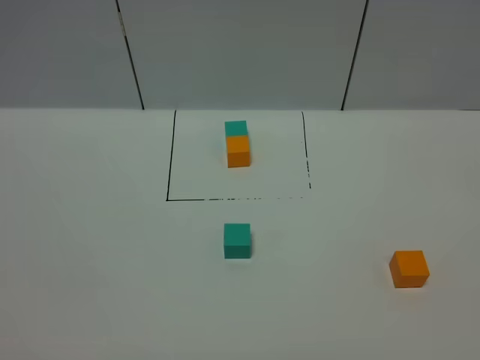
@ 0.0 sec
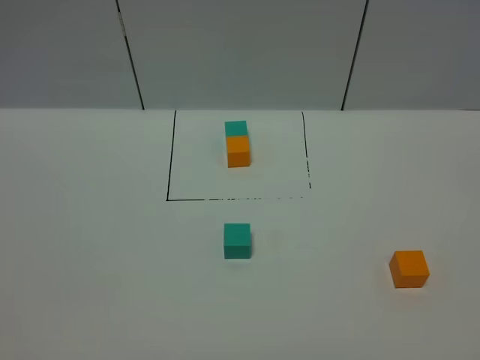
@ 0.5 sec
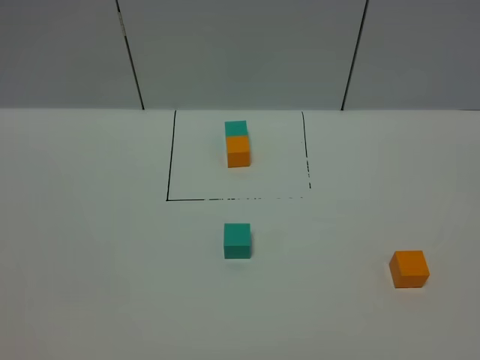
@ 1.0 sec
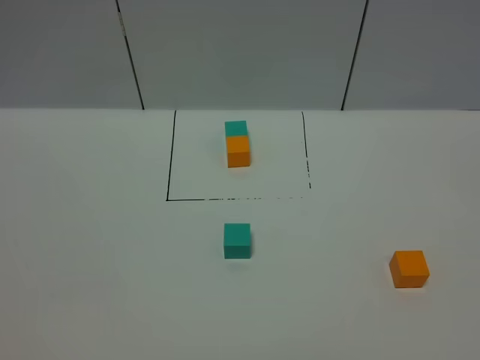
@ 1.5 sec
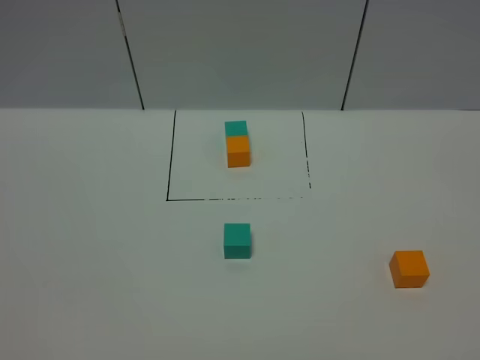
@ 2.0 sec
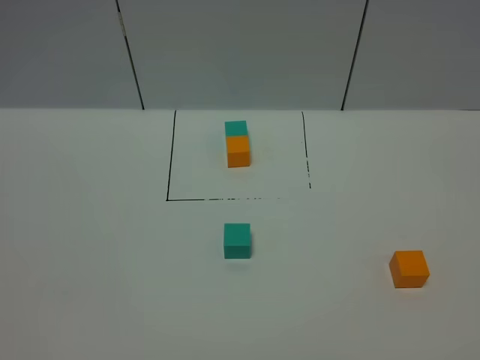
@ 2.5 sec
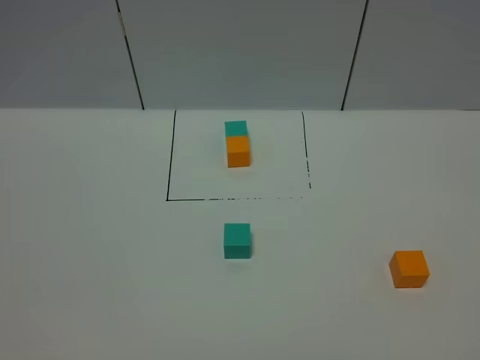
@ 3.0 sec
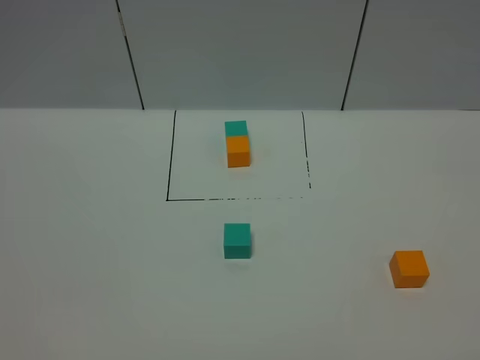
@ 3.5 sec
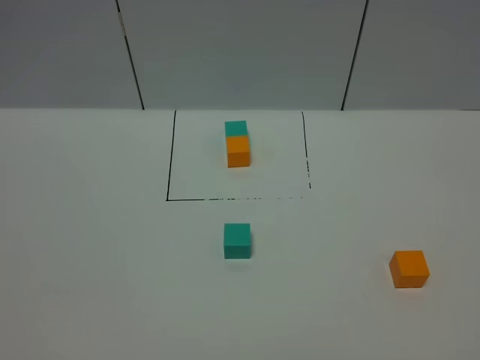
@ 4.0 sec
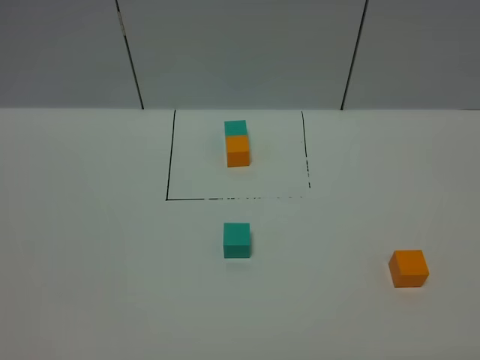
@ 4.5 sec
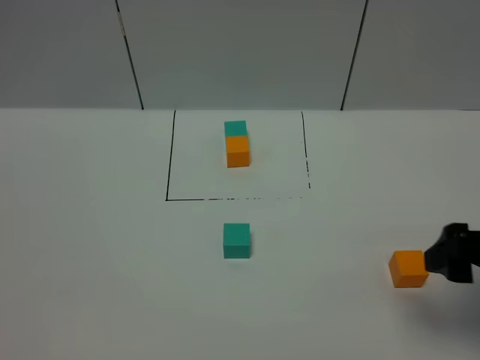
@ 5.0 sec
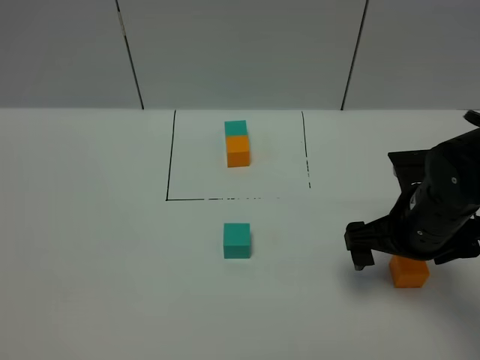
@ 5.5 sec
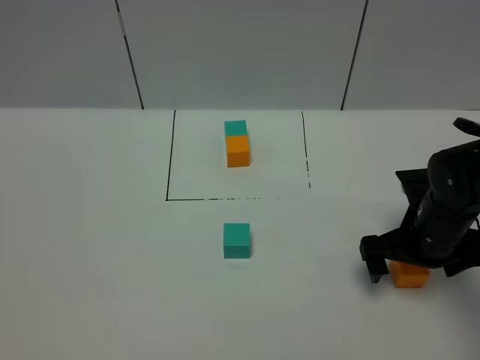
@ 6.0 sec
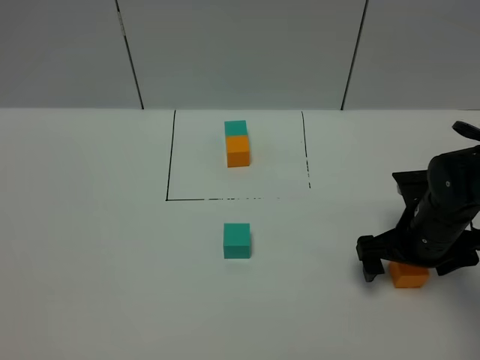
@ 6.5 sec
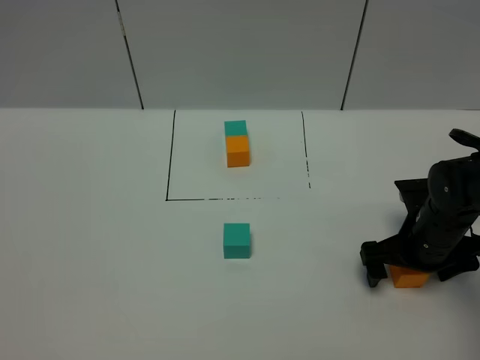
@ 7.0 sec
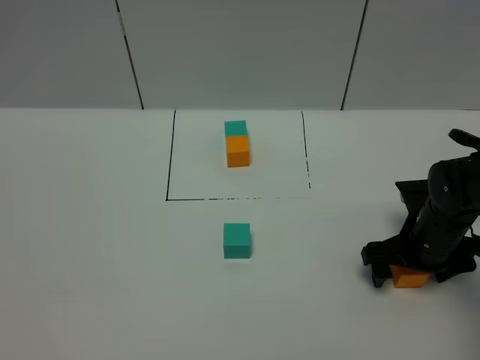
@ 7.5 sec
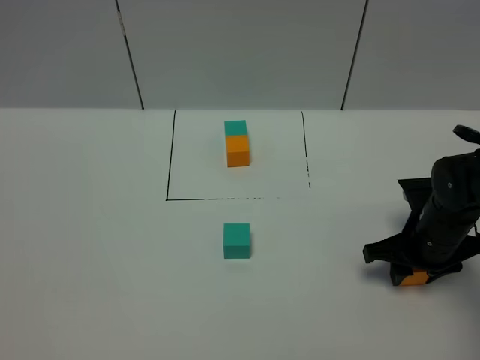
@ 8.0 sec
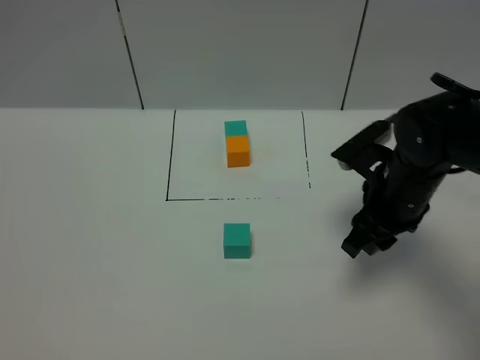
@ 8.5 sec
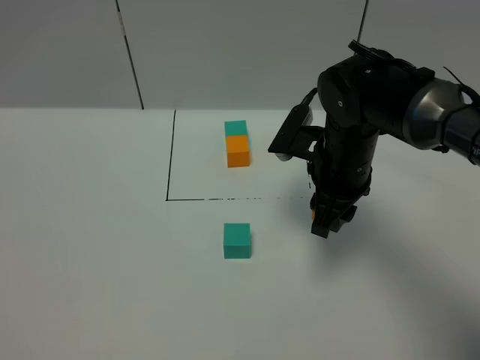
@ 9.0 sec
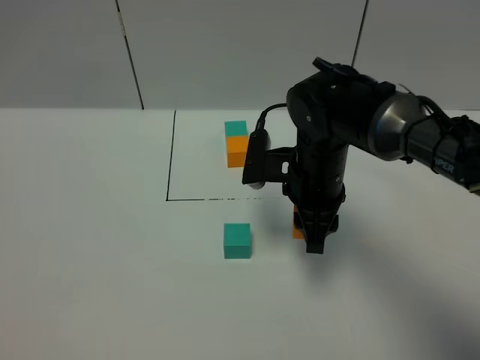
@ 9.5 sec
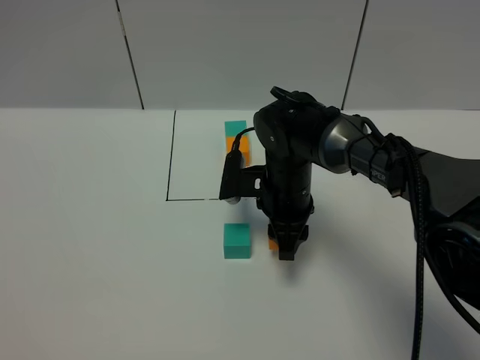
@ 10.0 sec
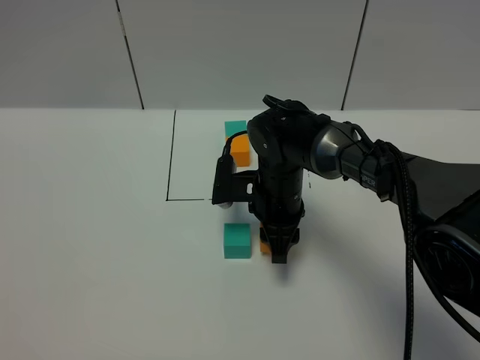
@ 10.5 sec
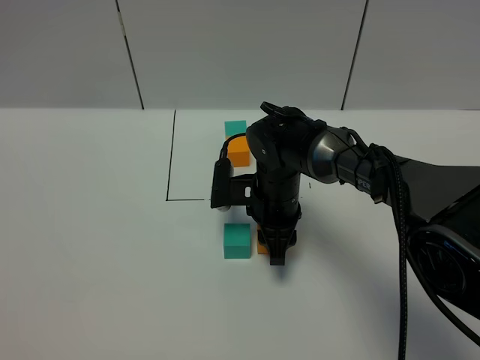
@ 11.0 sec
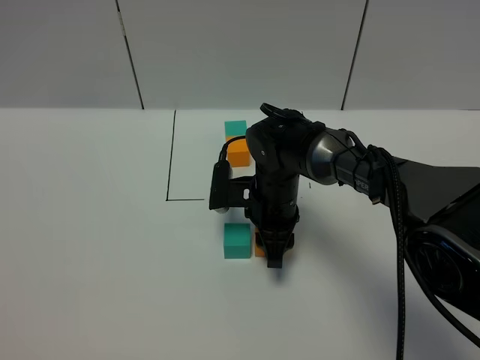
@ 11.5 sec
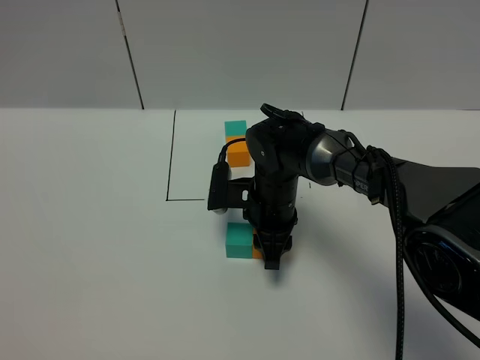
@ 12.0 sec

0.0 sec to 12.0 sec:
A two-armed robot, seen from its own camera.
Task of the whole recording: According to the building block template in front, assemble the scattered blocks together.
2.0 sec to 4.0 sec: Both grippers stay put.
4.0 sec to 6.0 sec: The right gripper is displaced forward by about 35 cm, and opens up.
6.0 sec to 8.0 sec: The right gripper closes up.
8.0 sec to 10.0 sec: The right gripper is displaced to the left and forward by about 20 cm.
10.0 sec to 12.0 sec: There are only small adjustments of the grippers.

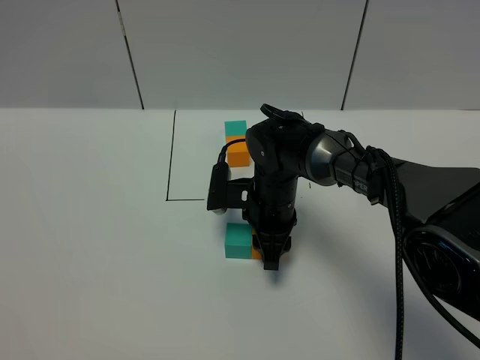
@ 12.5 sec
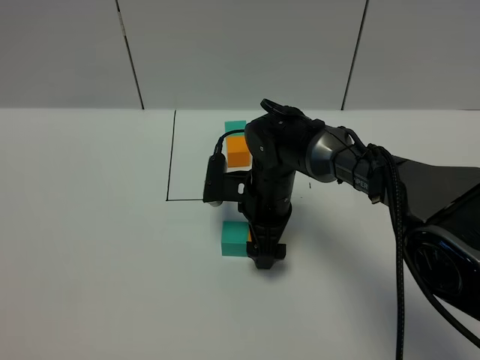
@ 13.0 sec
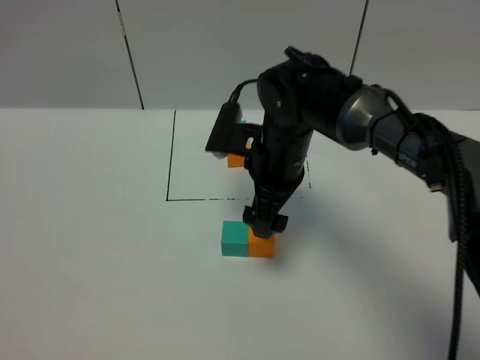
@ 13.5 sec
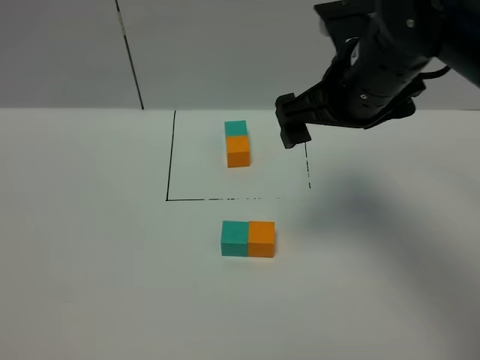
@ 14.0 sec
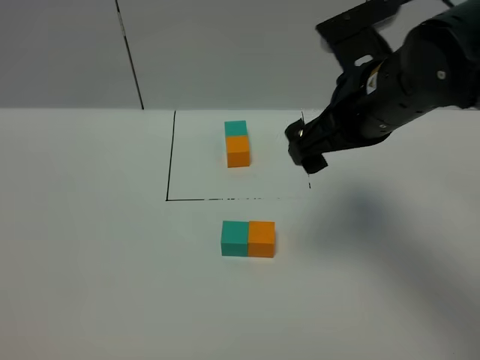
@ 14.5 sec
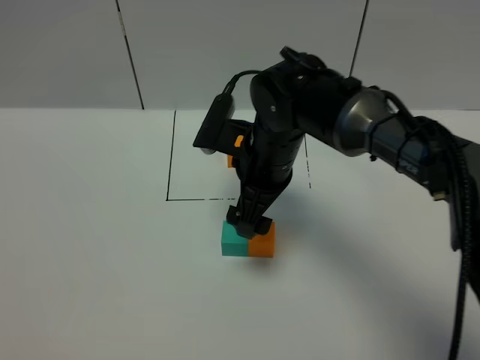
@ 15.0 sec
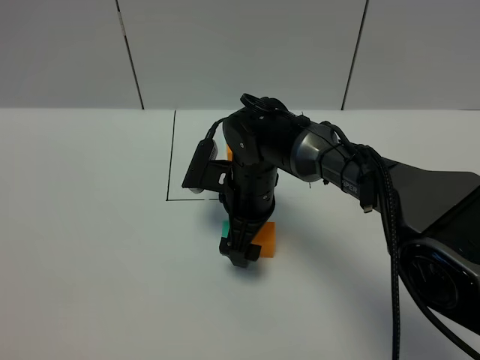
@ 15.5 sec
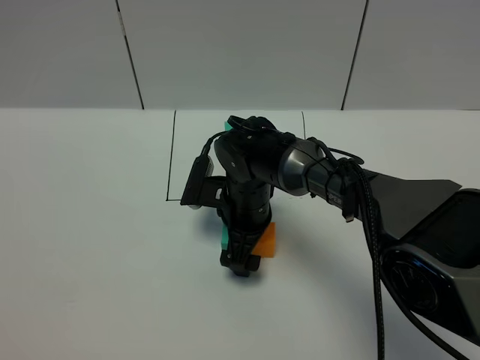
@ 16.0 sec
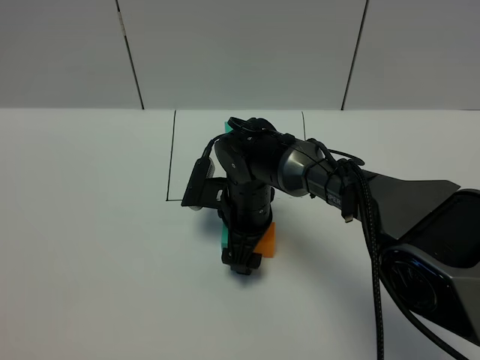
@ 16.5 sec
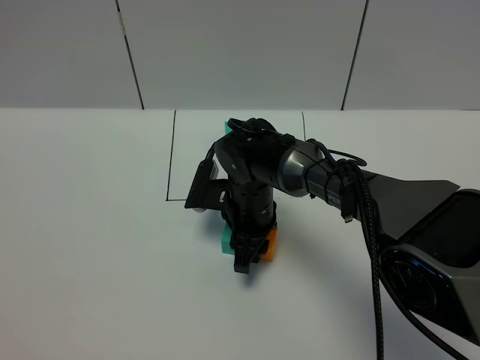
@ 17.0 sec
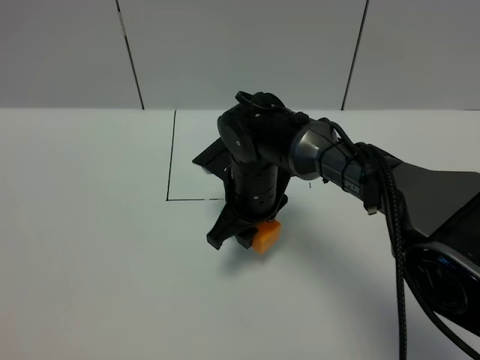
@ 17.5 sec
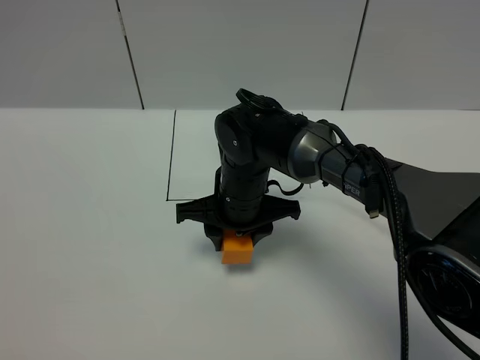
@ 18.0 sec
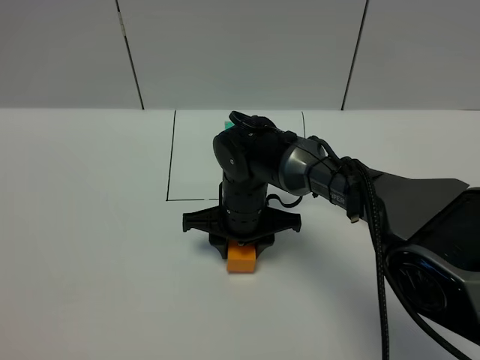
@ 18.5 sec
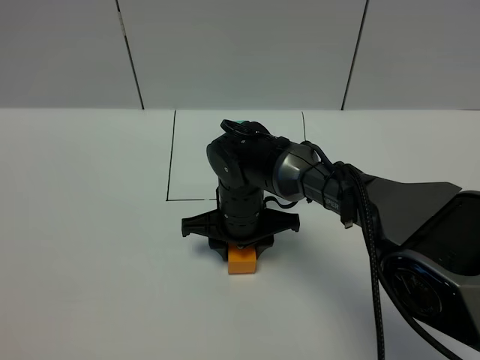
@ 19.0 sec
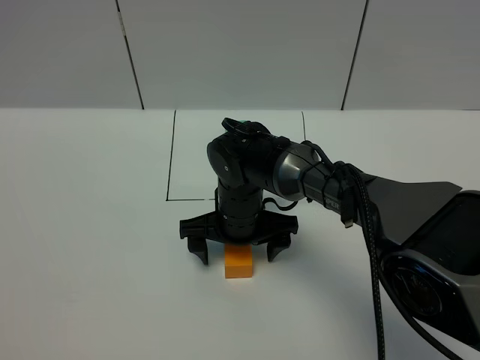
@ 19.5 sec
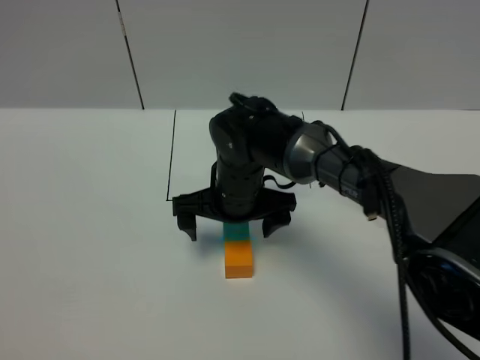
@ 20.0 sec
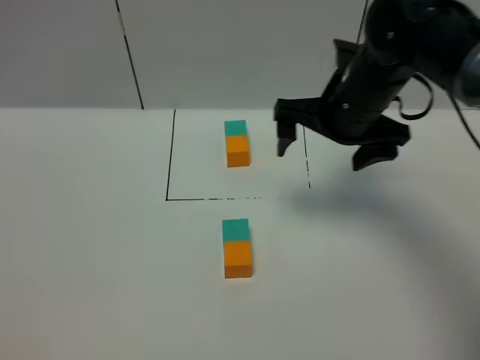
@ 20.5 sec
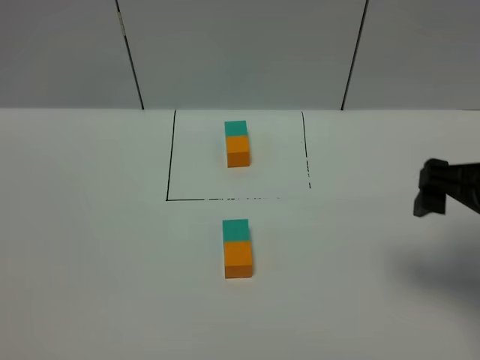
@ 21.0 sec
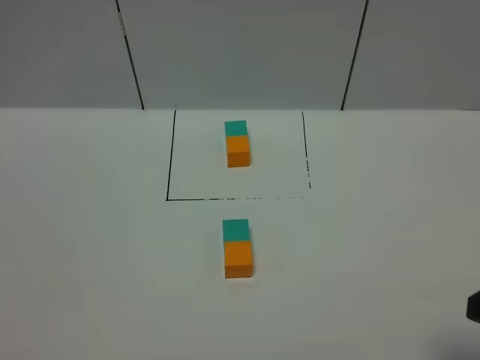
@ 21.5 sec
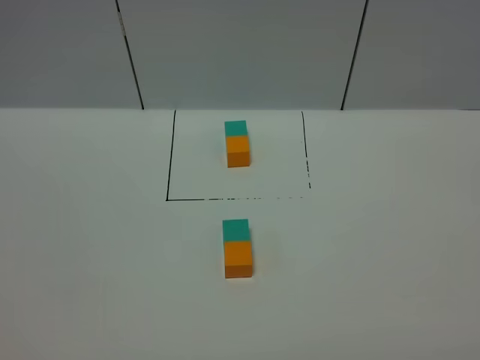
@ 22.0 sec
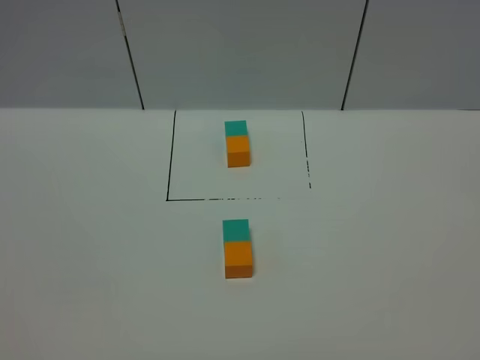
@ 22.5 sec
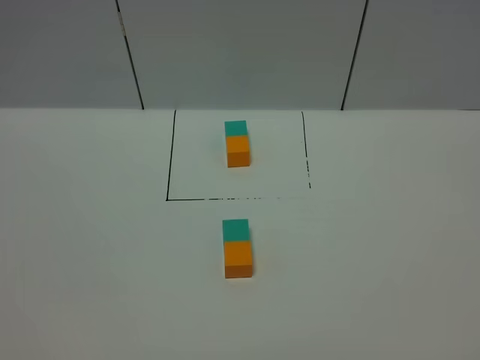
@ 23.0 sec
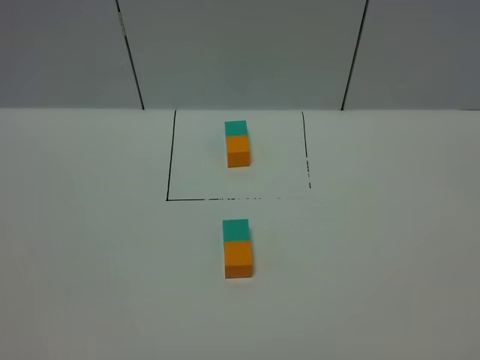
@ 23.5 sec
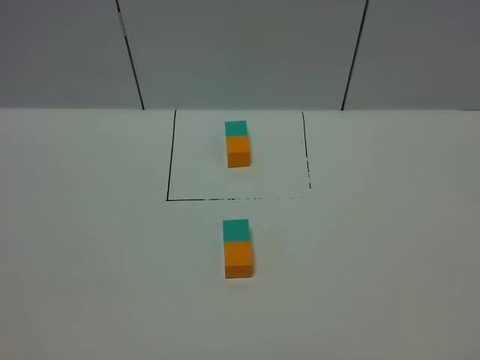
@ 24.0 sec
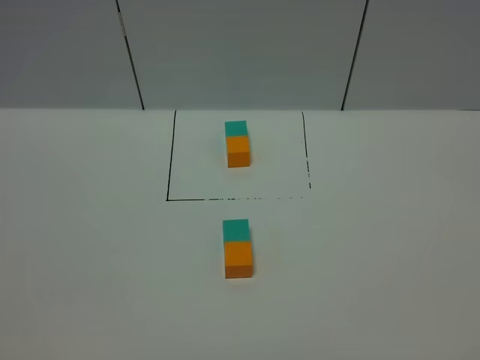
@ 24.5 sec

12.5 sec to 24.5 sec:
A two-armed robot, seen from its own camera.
Task of the whole recording: According to the building block template in front, assemble the scattered blocks together.
Step, 13.5 sec to 19.5 sec: Adjust the pose of the building blocks.
12.5 sec to 14.5 sec: The right gripper travels upward by roughly 20 cm, and opens its fingers.
14.5 sec to 16.5 sec: The right gripper is displaced downward and to the left by some 25 cm.
16.5 sec to 18.5 sec: The right gripper closes up.
18.5 sec to 20.5 sec: The right gripper goes approximately 20 cm upward and to the right, and opens.
20.5 sec to 22.5 sec: The right gripper moves backward, about 40 cm.
